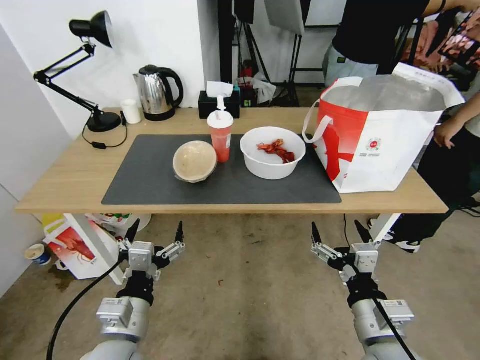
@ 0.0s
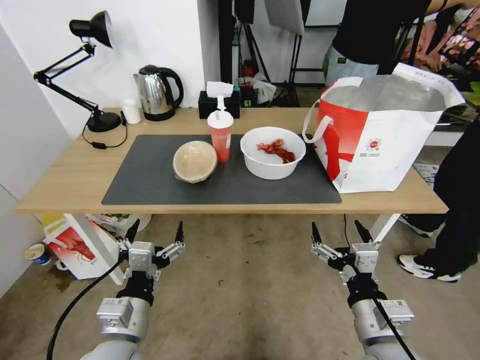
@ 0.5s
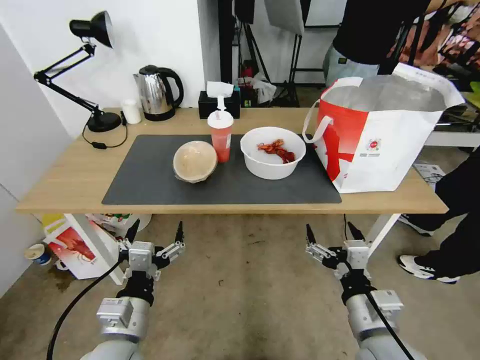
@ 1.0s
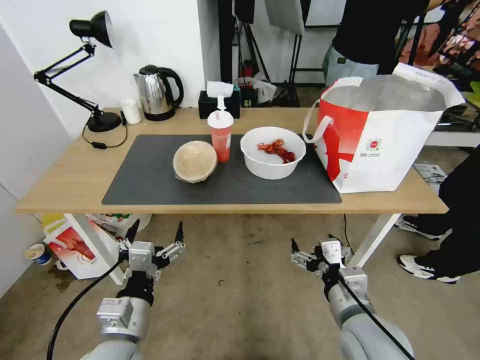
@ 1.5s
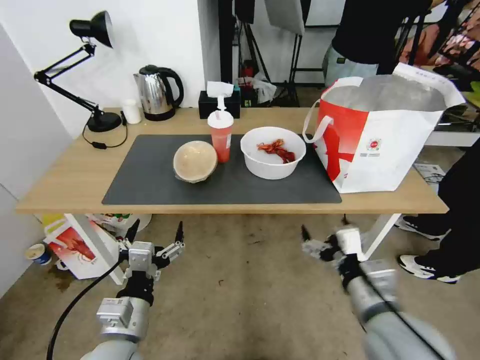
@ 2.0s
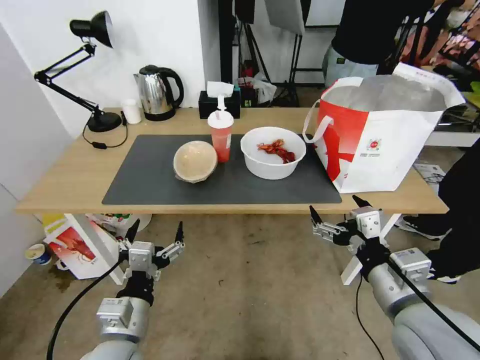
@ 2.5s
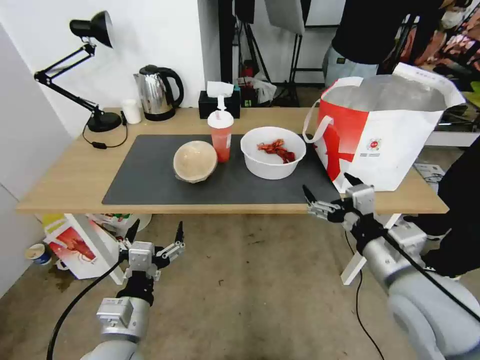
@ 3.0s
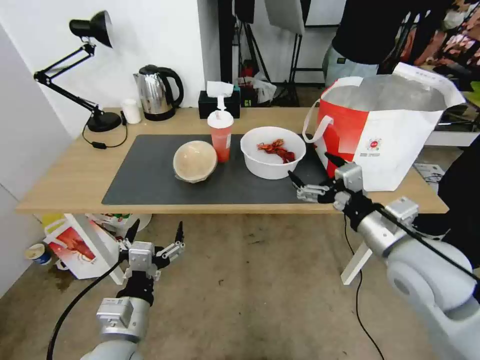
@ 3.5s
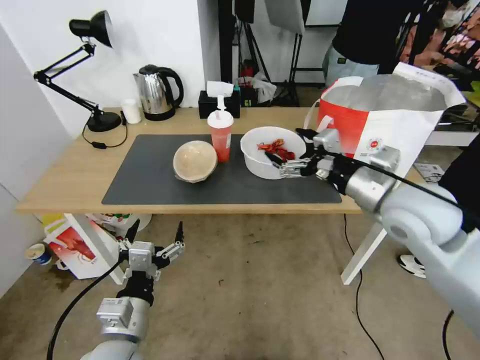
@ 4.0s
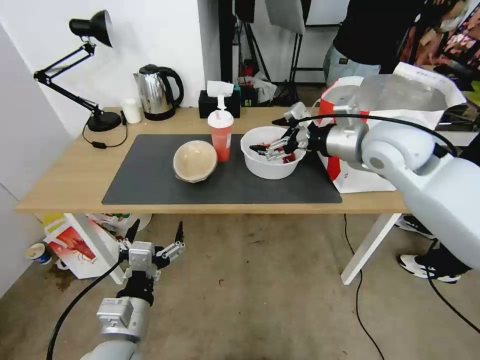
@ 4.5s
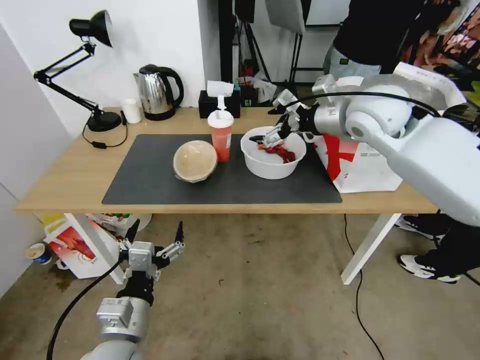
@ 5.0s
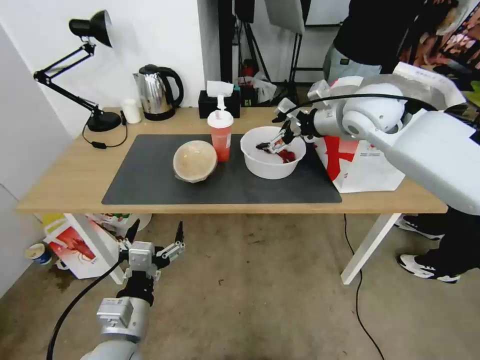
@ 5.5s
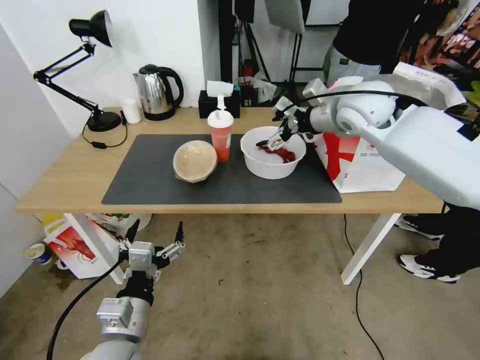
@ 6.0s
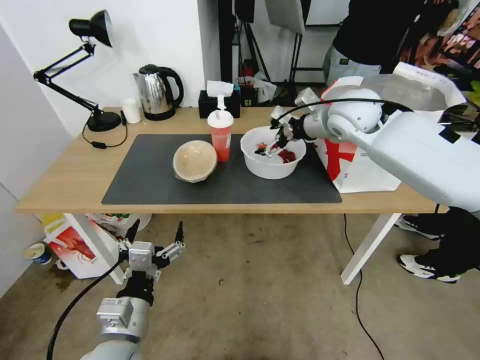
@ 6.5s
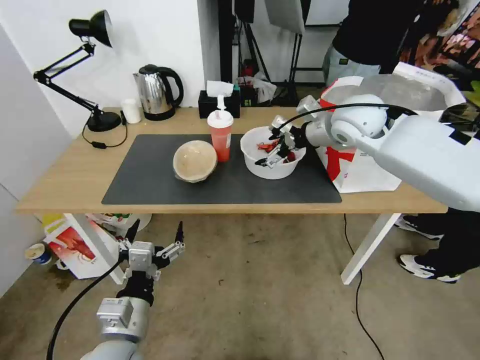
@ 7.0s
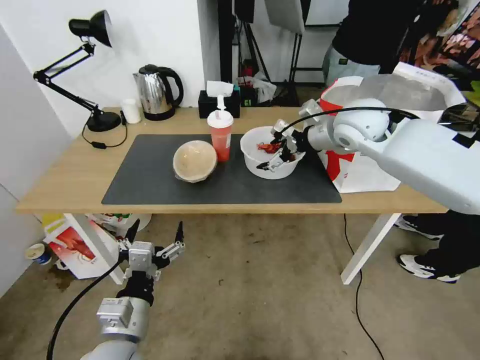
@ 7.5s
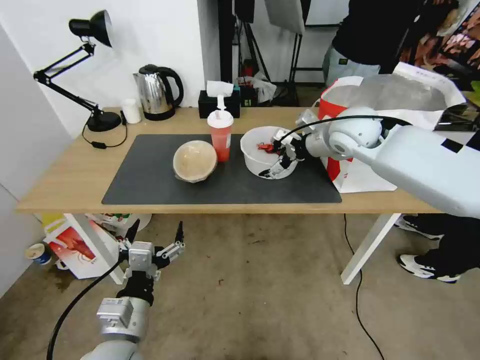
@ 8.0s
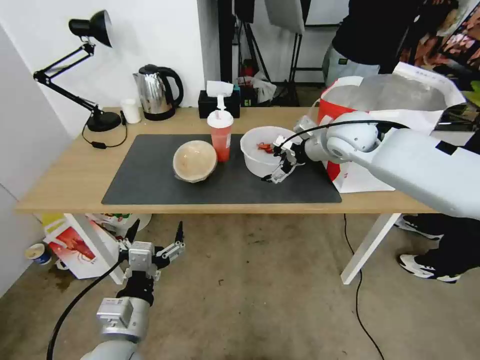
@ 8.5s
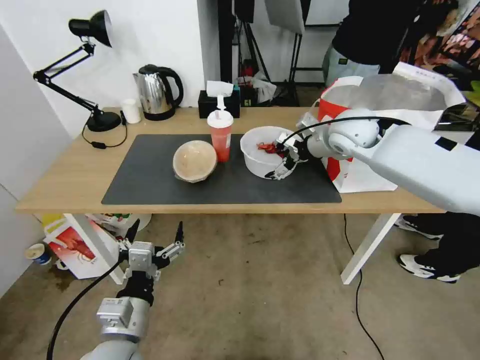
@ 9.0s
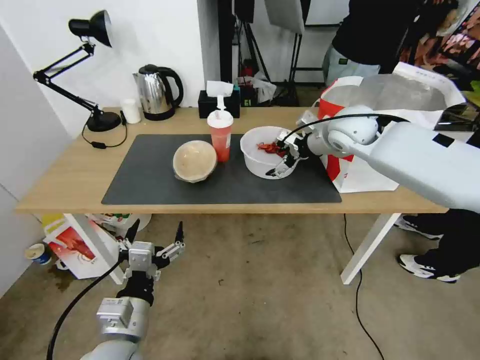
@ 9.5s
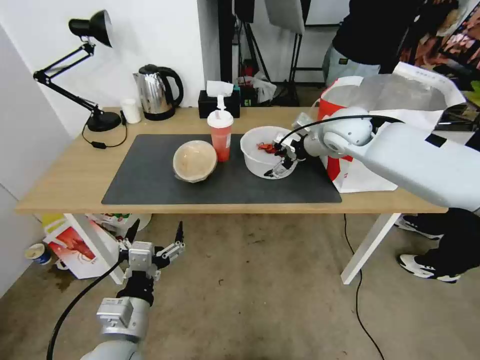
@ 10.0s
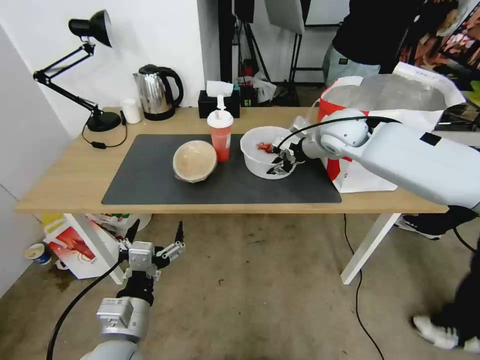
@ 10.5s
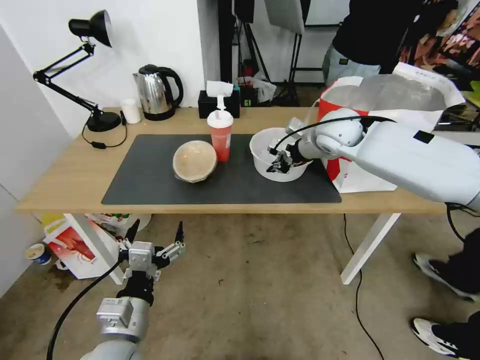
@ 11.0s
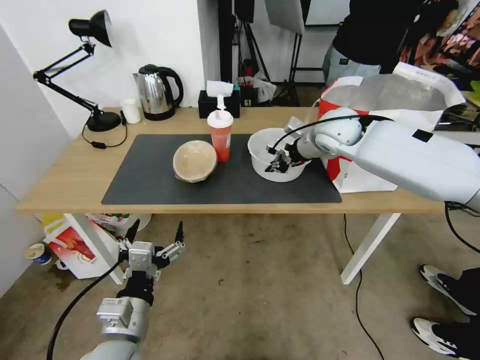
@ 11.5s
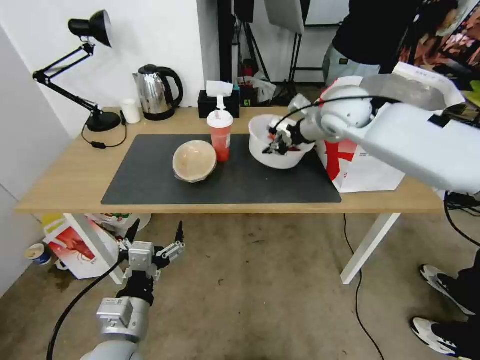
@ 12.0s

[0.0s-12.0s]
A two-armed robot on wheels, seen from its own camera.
Task of the whole recording: Pick up the trash from the table and place it into the takeout bag.
2.0s to 4.0s: The right gripper heads forward and upward, covering about 20 cm.
4.0s to 6.0s: The right gripper shifts about 20 cm forward.
6.0s to 8.0s: There are only small adjustments of the grippers.
8.0s to 10.0s: The grippers stay close to where they were, moving slightly.
10.0s to 12.0s: The right gripper closes.

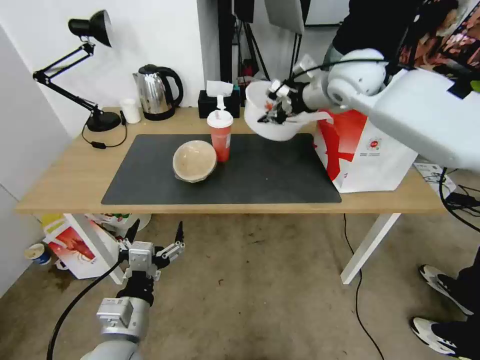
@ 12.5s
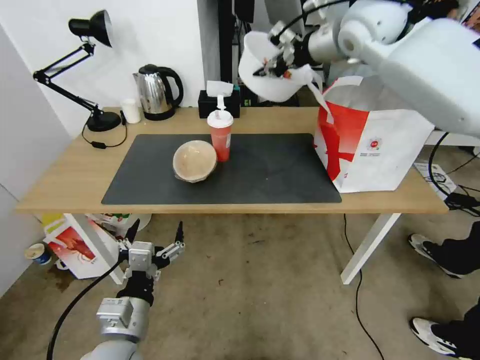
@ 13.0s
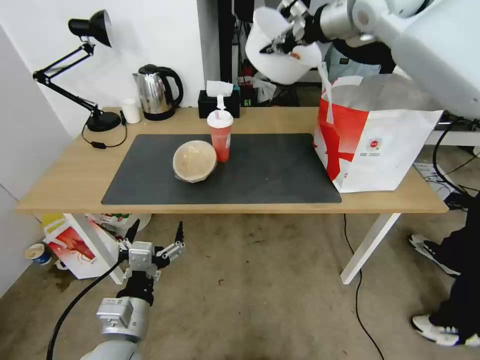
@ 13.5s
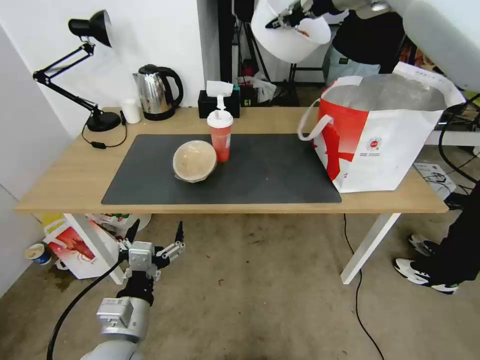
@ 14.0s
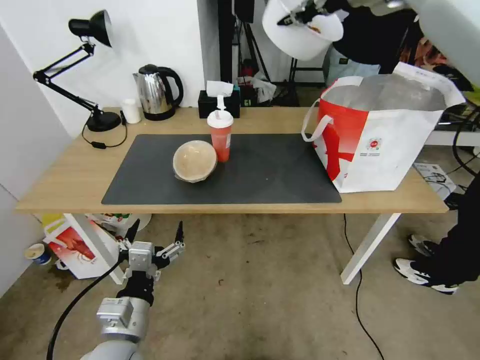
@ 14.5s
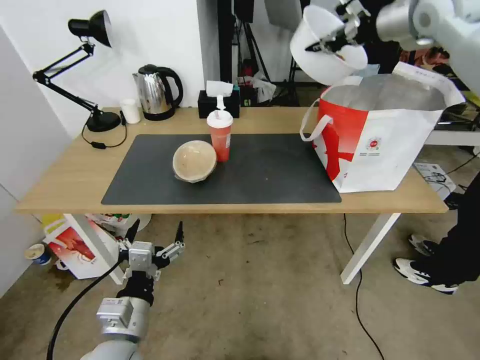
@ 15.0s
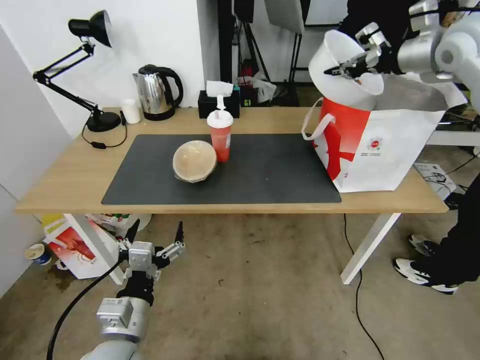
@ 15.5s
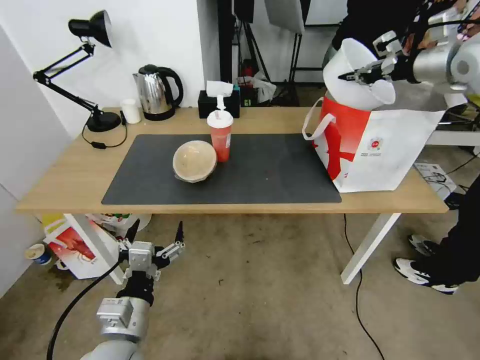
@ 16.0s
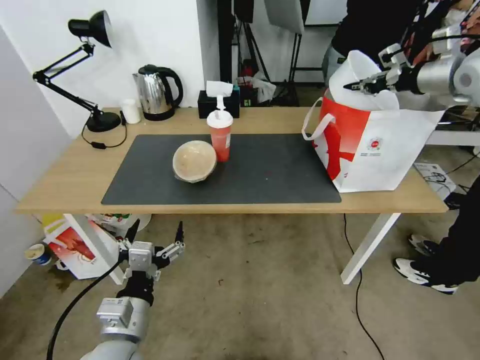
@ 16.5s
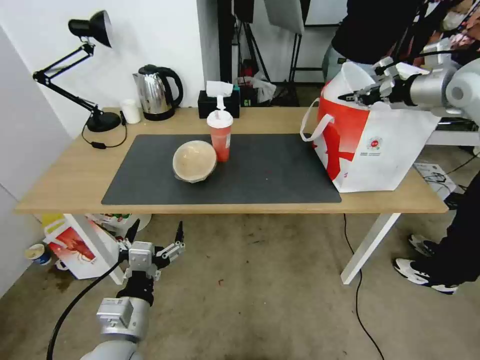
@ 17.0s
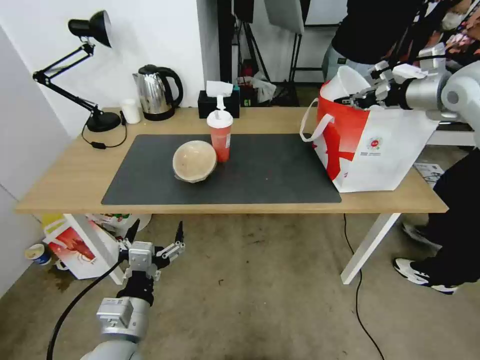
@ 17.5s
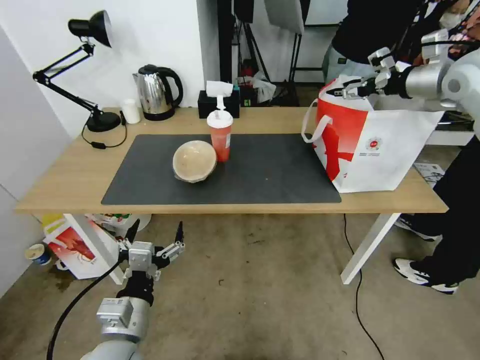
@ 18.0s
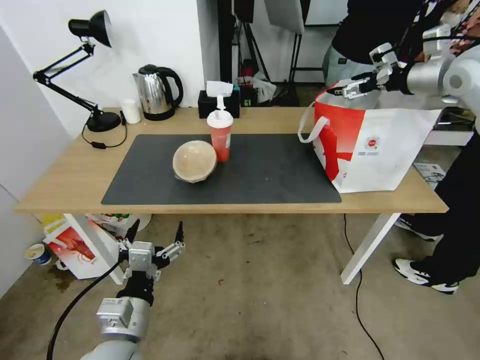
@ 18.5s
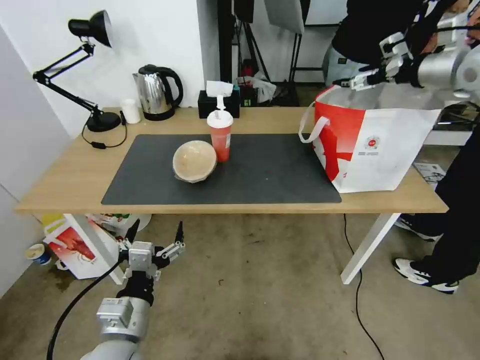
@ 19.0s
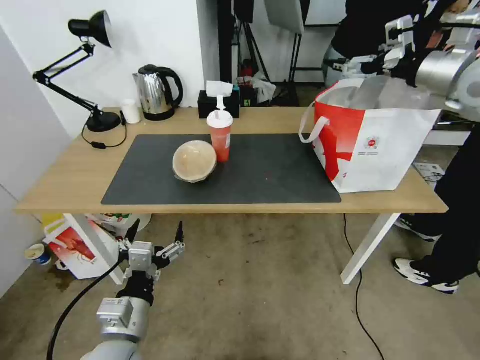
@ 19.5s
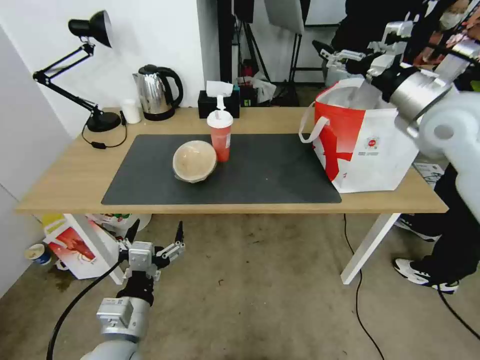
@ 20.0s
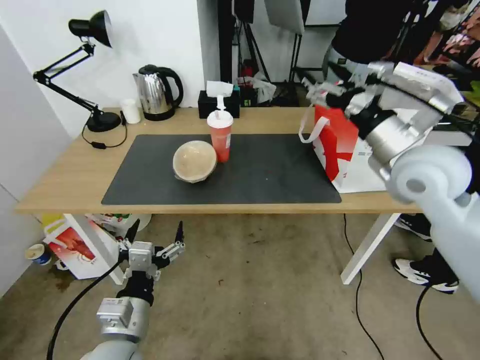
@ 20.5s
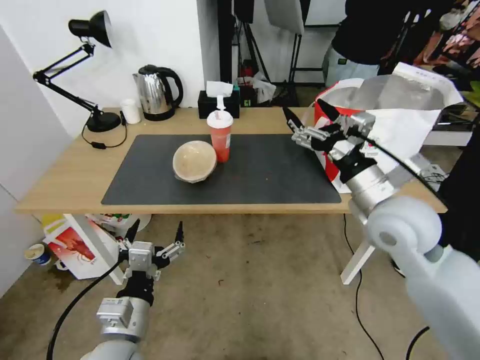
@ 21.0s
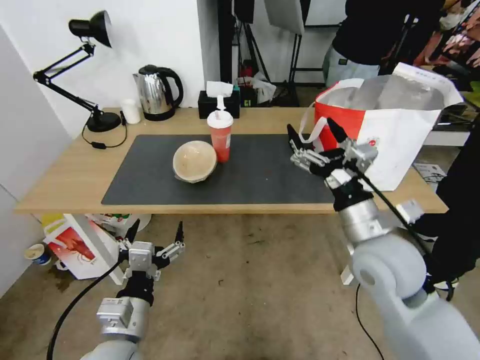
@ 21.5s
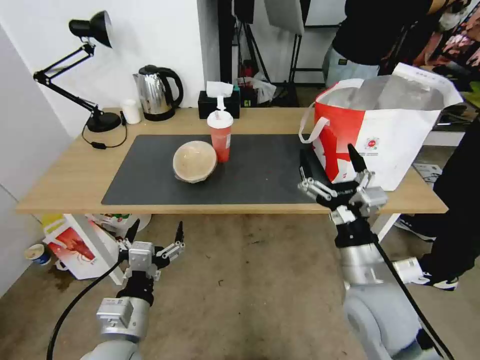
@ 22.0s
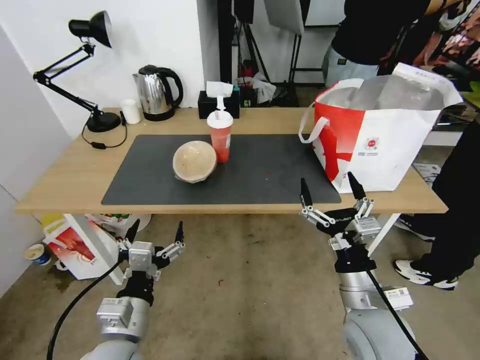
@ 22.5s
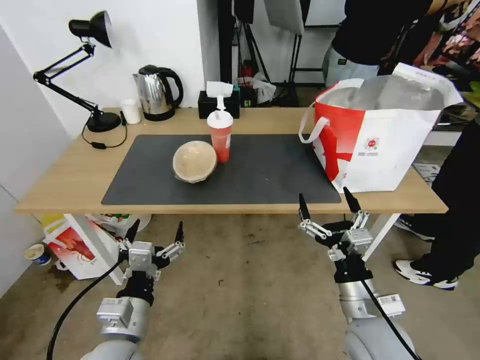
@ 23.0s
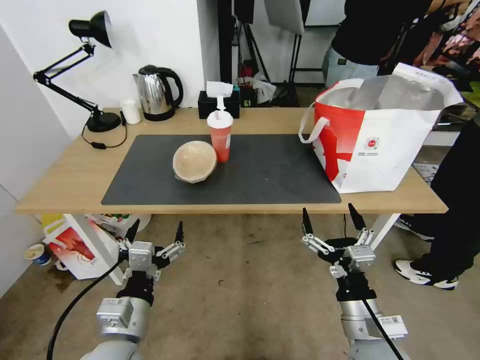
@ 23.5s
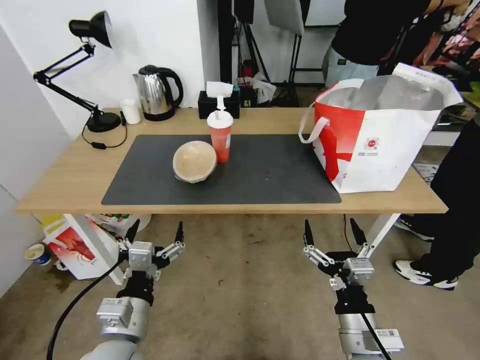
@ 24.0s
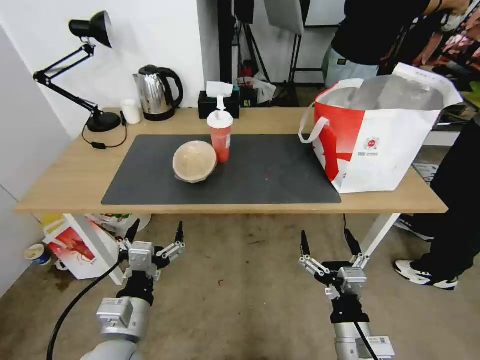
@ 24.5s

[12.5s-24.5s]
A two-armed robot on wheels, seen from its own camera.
Task of the whole recording: Pick up the trash from the table and place it into the takeout bag.
12.5s to 14.5s: The right gripper travels upward by approximately 15 cm.
14.5s to 16.5s: The right gripper travels to the right and downward by roughly 25 cm.
16.5s to 18.5s: The right gripper opens.
18.5s to 20.5s: The right gripper heads backward, to the left and downward, covering some 25 cm.
20.5s to 22.5s: The right gripper travels downward and backward by approximately 25 cm.
22.5s to 24.5s: The right gripper is displaced backward and downward by roughly 10 cm.

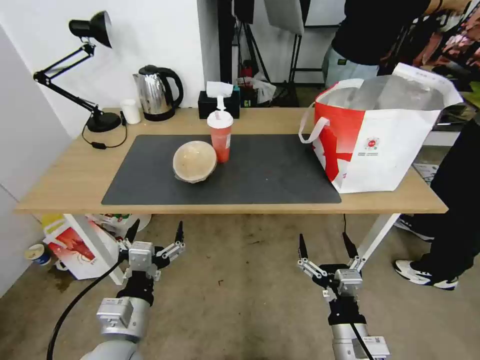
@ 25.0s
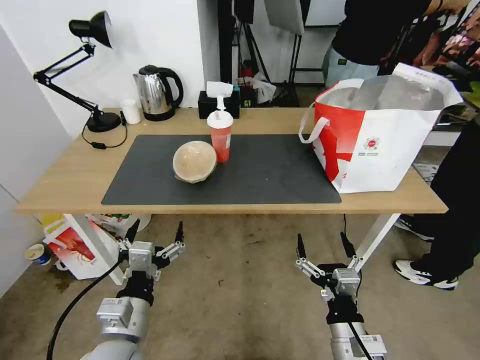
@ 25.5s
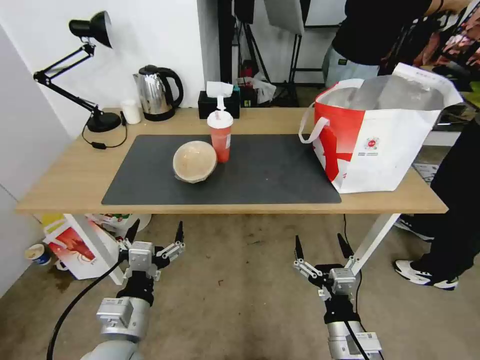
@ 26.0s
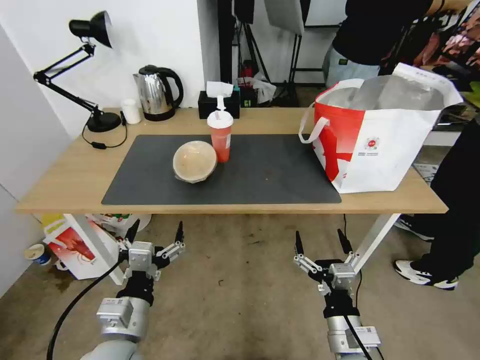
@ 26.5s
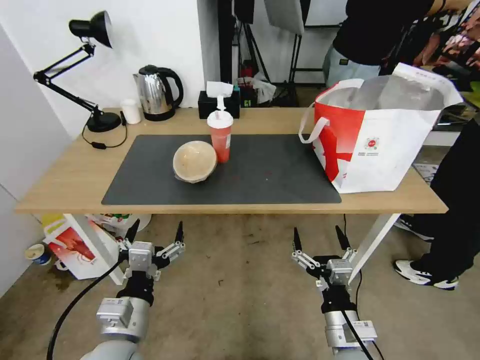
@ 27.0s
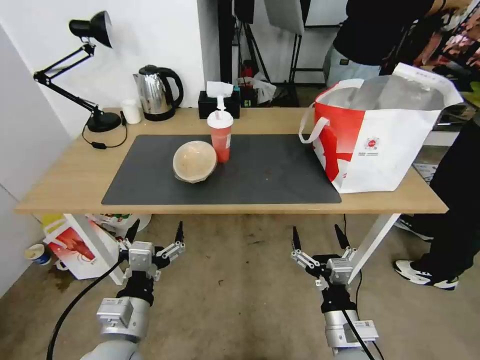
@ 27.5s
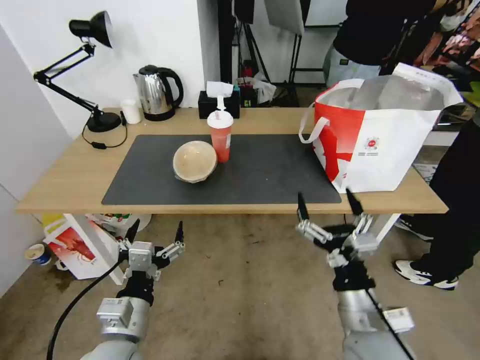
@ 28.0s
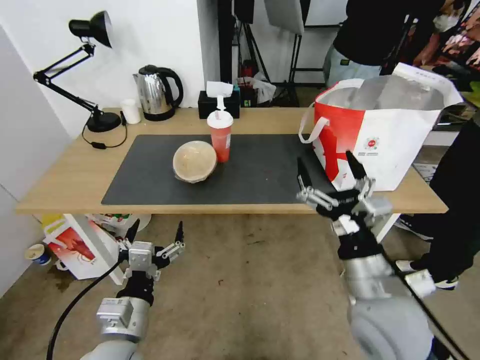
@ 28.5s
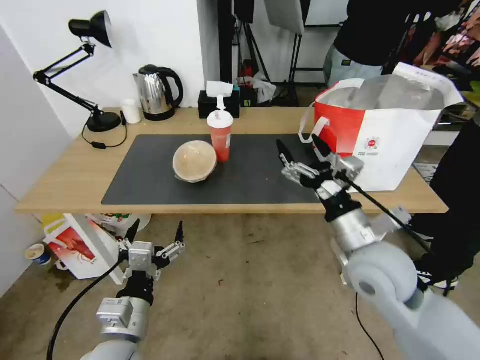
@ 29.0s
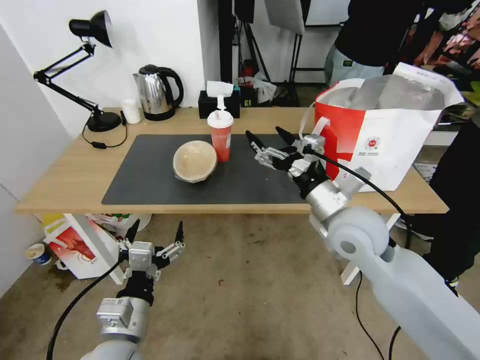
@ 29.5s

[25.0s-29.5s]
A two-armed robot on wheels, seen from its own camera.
Task of the whole recording: Pick up the trash from the table and place it into the takeout bag.
25.0s to 27.0s: There are only small adjustments of the grippers.
27.0s to 29.5s: The right gripper heads forward and upward, covering some 25 cm.
